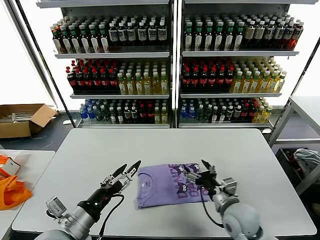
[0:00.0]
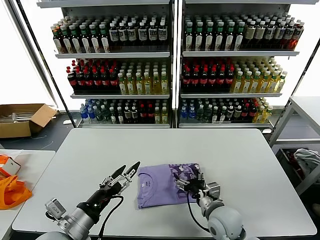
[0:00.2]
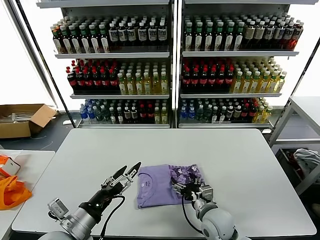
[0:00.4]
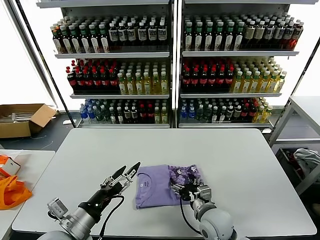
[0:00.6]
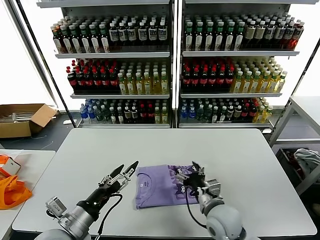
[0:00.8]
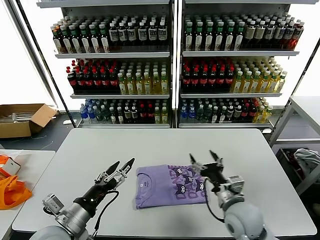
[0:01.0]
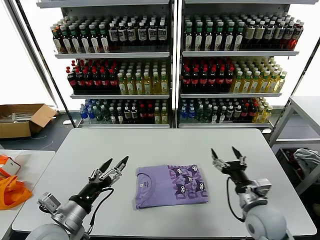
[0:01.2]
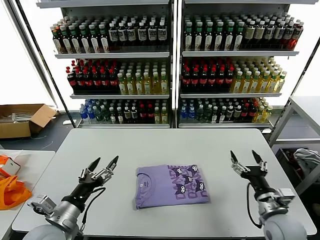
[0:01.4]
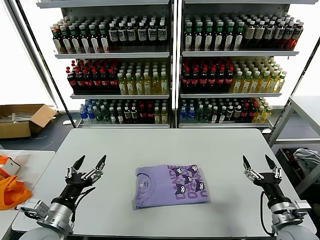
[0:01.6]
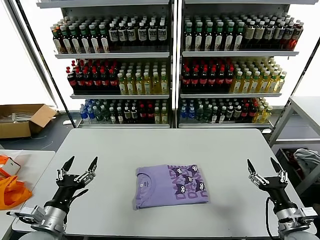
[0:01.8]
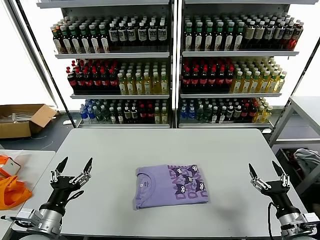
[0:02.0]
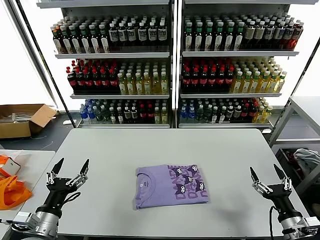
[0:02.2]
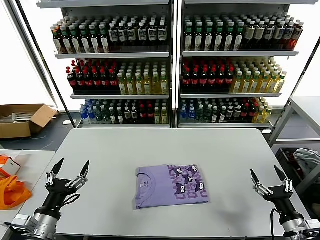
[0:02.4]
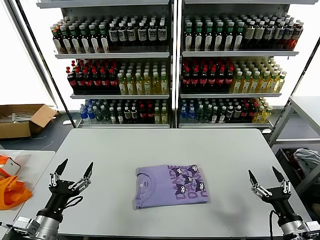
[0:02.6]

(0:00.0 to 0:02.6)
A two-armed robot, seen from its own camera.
Task of the whole recording: fold and organize the clothes.
0:00.0 - 0:01.2: The right gripper travels to the left and back again, approximately 10 cm each way.
0:01.2 - 0:02.6: The right gripper is displaced to the right and backward by approximately 15 cm. Meanwhile the left gripper travels to the left by approximately 5 cm.

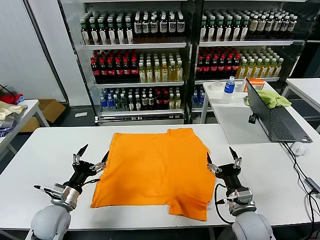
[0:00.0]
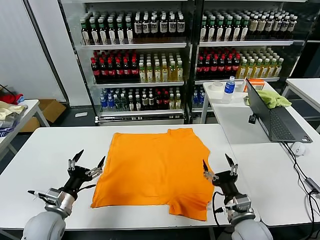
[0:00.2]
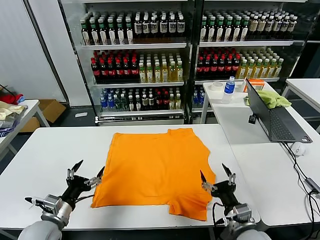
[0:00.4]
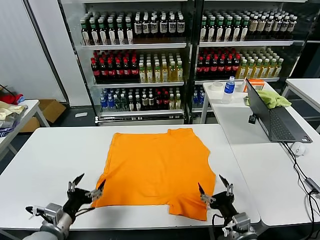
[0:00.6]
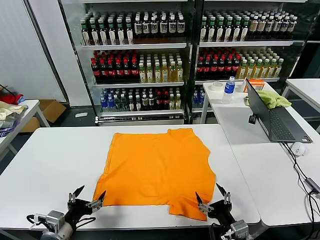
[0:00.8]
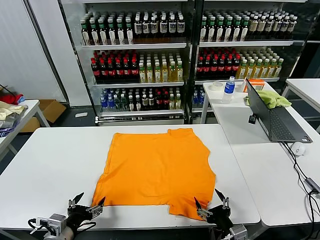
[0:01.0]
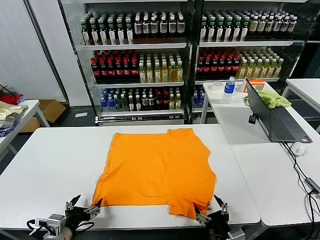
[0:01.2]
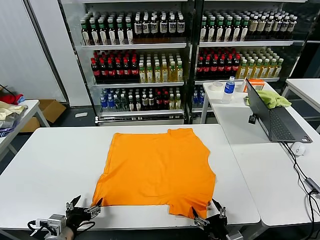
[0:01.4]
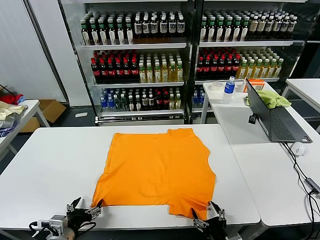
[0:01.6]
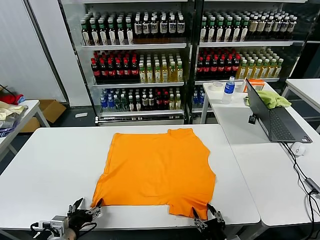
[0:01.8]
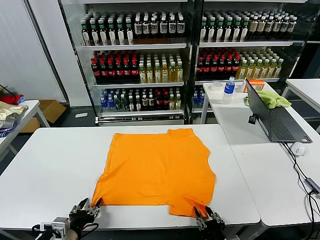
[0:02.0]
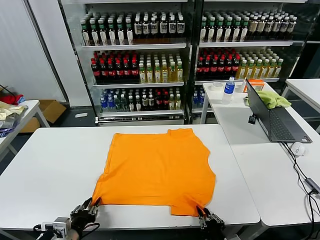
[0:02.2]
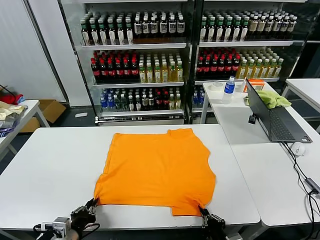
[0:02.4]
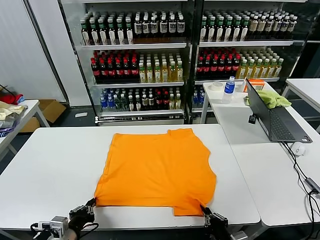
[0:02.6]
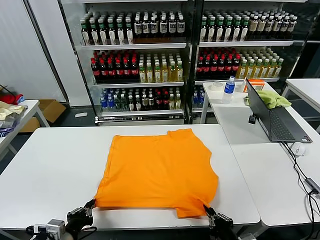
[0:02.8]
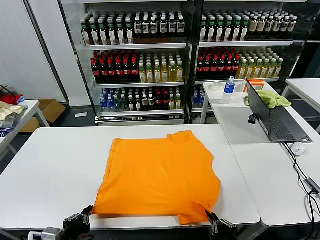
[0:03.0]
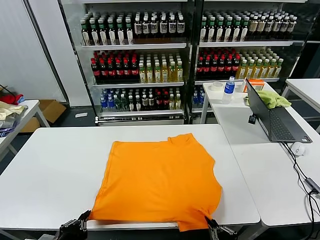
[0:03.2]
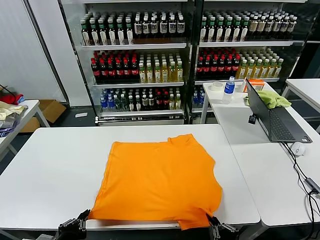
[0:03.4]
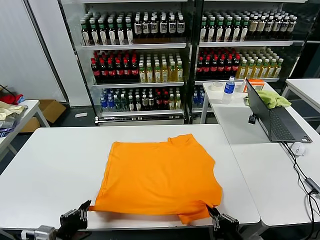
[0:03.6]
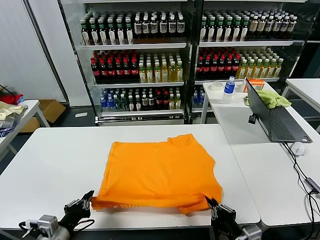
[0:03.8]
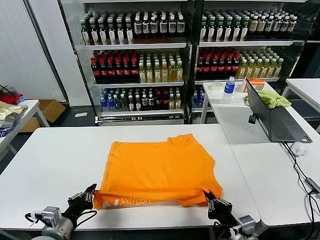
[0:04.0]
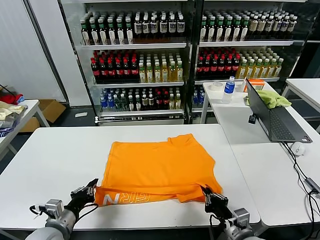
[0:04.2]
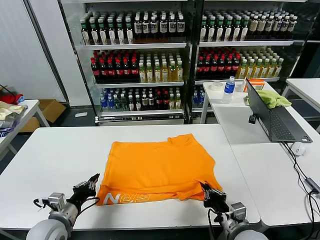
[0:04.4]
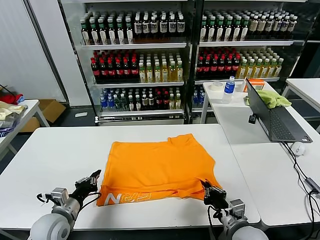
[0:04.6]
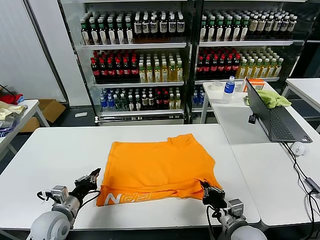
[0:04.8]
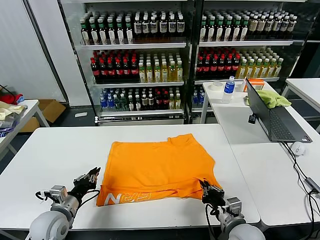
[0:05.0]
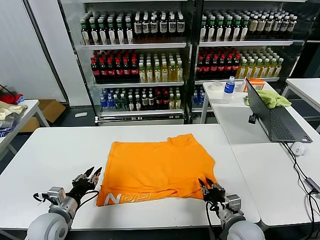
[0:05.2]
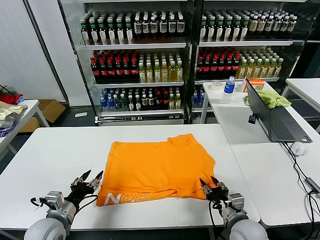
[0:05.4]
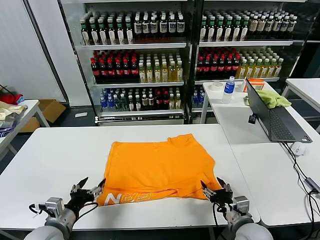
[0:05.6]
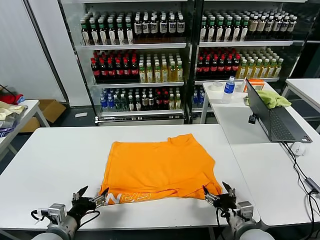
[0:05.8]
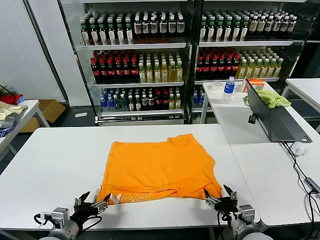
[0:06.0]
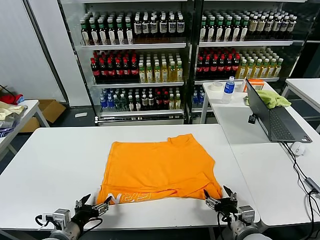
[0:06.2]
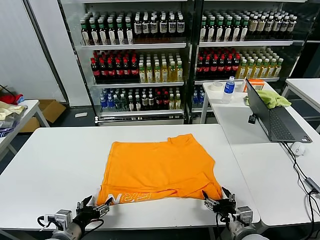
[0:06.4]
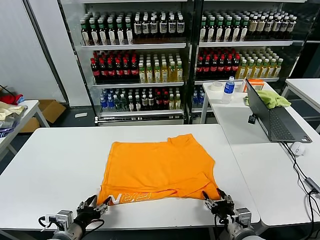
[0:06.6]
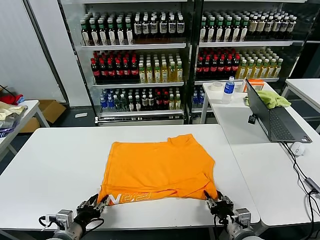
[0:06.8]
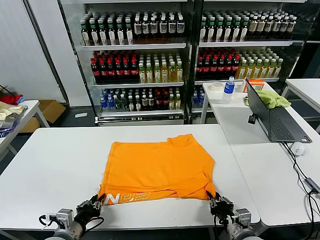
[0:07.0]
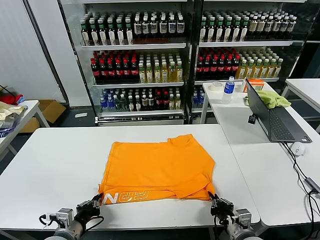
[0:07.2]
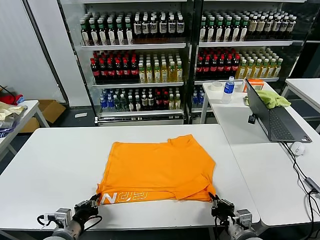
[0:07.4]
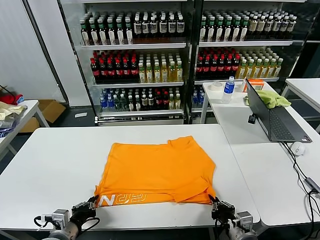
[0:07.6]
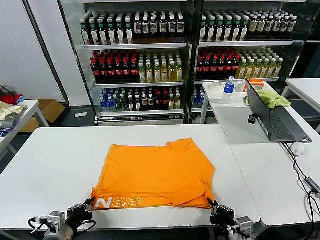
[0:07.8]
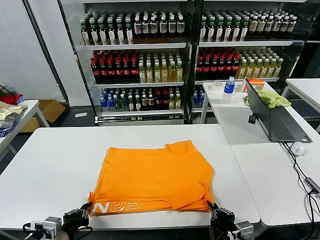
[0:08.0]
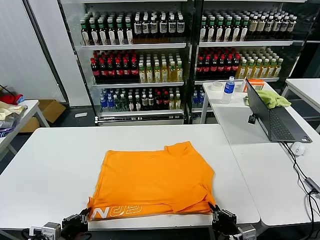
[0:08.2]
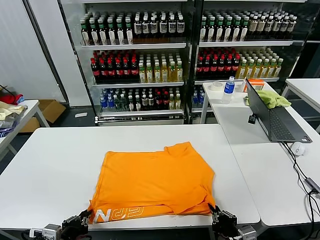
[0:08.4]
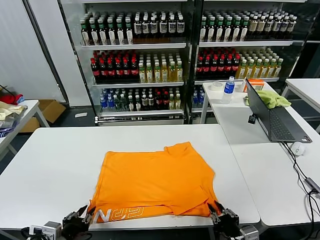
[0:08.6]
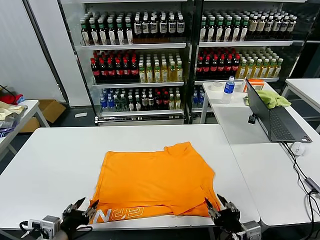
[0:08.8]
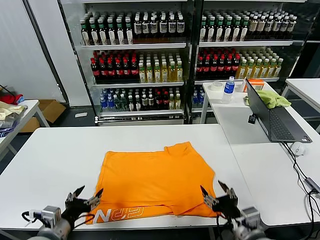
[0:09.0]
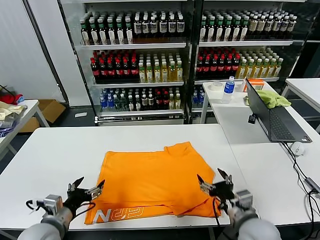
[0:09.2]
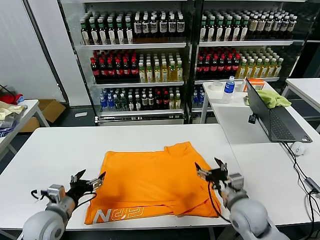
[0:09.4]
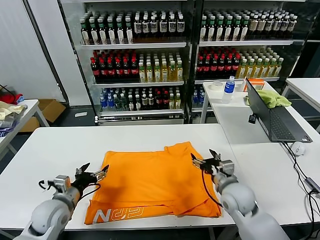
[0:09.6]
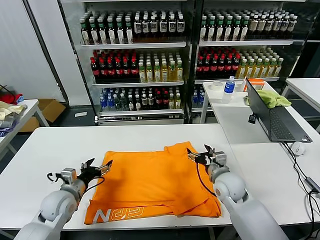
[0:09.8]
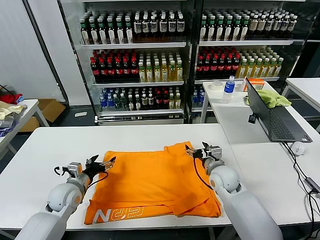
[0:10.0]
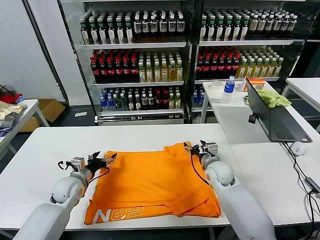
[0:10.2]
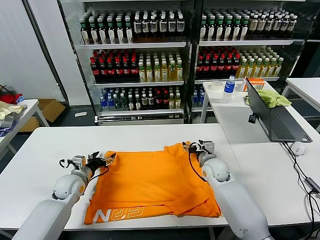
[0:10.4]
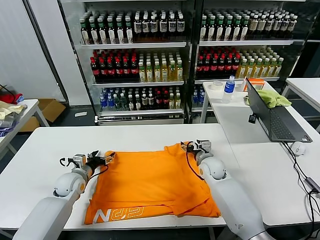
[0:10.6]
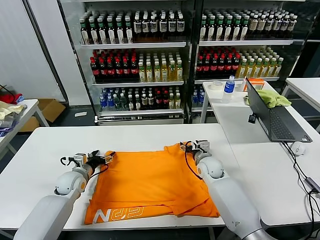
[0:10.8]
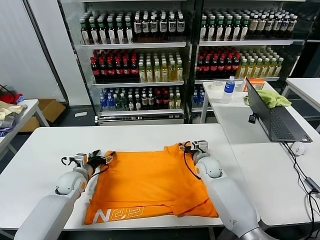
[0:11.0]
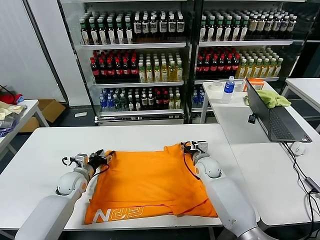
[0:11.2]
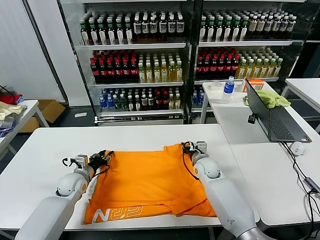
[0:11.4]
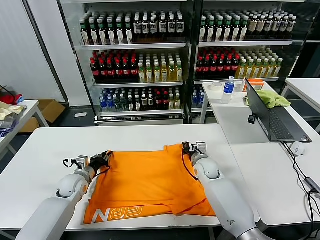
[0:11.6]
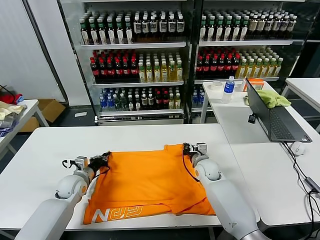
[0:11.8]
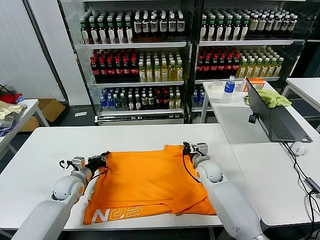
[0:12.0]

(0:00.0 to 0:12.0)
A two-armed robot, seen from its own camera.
Task of the whole recording: fold and organize the clothes.
Step, 0:00.0 - 0:02.4: use both grippers simultaneously to clamp the lower edge of the clothing fabric.
Step, 0:02.6 - 0:05.4: use both grippers to drag the lower edge of the fabric forward and fold it over the upper edge.
Step, 0:05.6 - 0:08.6: Drag the clothes downward with both gripper.
Step, 0:08.8 - 0:11.6: use both grippers simultaneously to clamp the upper edge of the clothing fabric.
0:01.6 - 0:03.0: The left gripper shifts by approximately 5 cm, and closes; the right gripper heads upward, covering about 5 cm, and closes its fingers.
0:03.0 - 0:04.4: Both grippers move forward, some 10 cm.
0:04.4 - 0:06.0: The left gripper ends up some 5 cm from where it was, and opens up, while the right gripper opens its fingers.
0:06.0 - 0:07.6: The right gripper closes up. Meanwhile the left gripper closes up.
0:07.6 - 0:09.0: Both grippers move upward, about 5 cm. The left gripper opens up; the right gripper opens up.
0:09.0 - 0:10.4: Both grippers move forward, roughly 25 cm.
0:10.4 - 0:12.0: The left gripper closes up, while the right gripper closes its fingers.

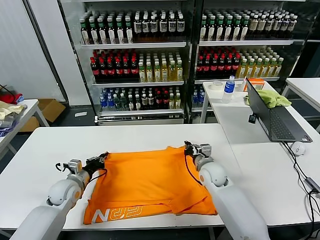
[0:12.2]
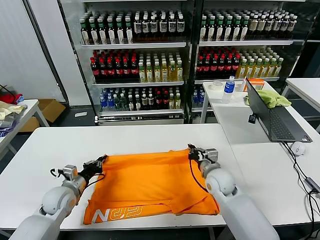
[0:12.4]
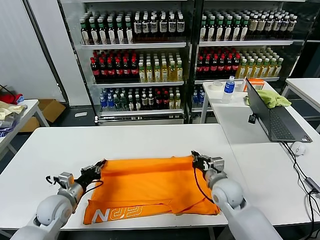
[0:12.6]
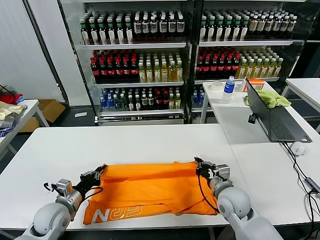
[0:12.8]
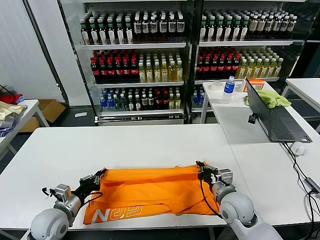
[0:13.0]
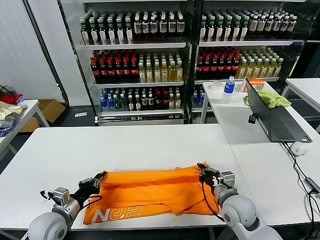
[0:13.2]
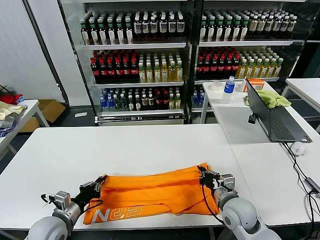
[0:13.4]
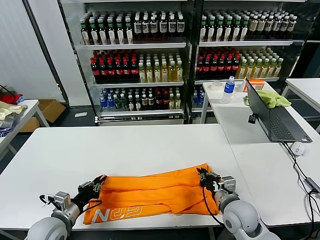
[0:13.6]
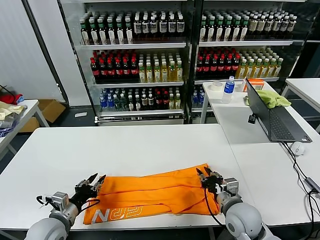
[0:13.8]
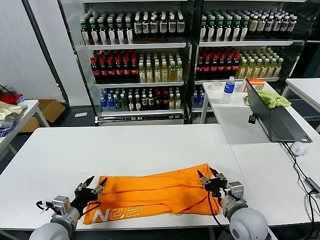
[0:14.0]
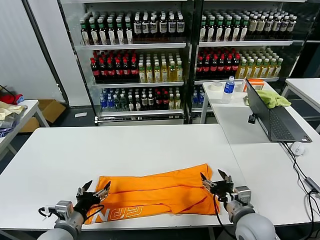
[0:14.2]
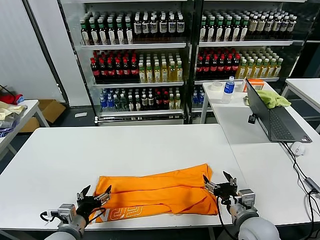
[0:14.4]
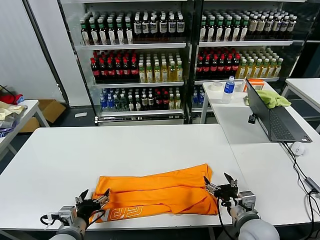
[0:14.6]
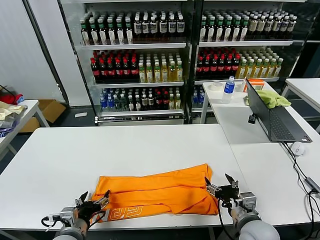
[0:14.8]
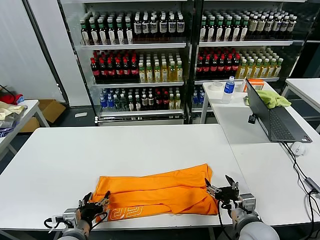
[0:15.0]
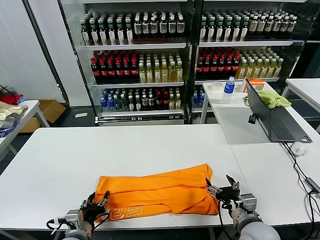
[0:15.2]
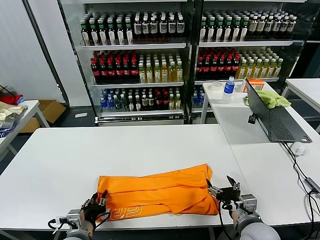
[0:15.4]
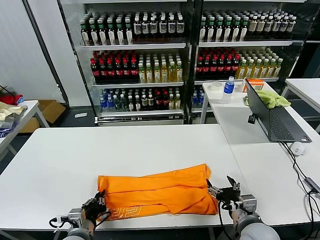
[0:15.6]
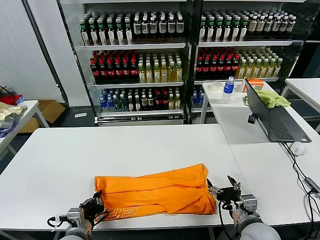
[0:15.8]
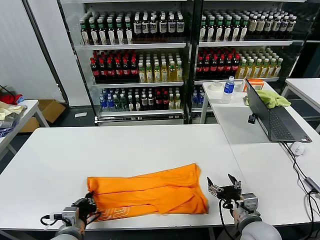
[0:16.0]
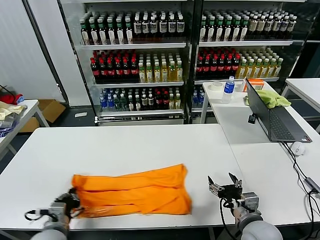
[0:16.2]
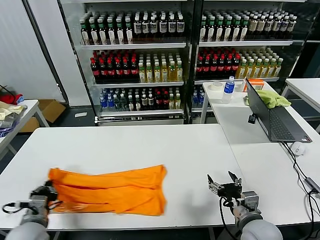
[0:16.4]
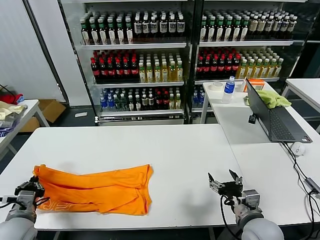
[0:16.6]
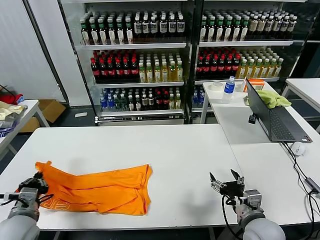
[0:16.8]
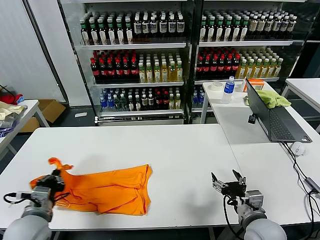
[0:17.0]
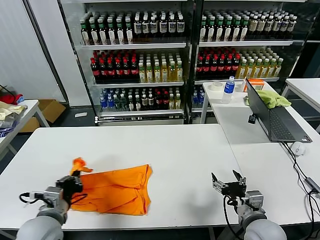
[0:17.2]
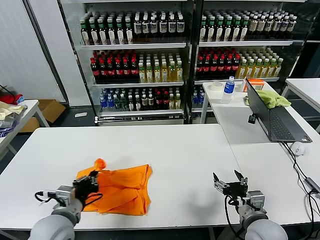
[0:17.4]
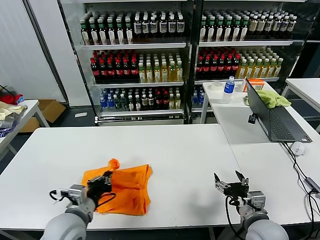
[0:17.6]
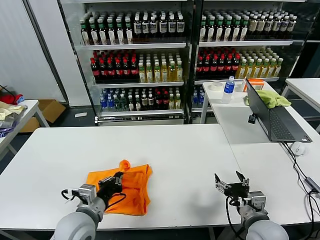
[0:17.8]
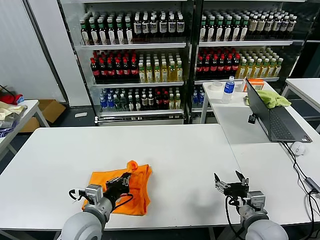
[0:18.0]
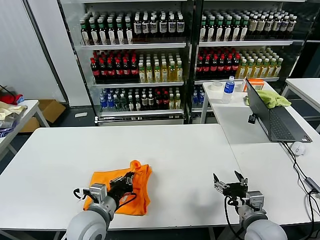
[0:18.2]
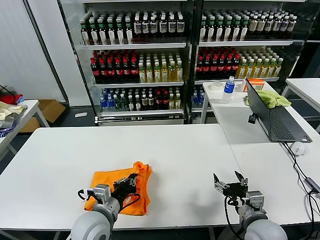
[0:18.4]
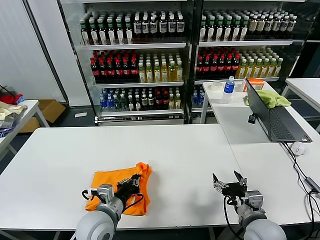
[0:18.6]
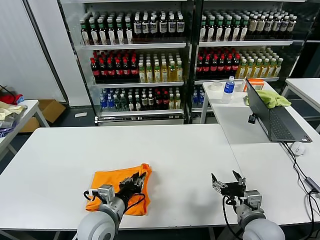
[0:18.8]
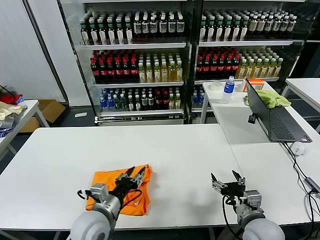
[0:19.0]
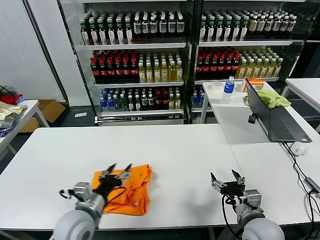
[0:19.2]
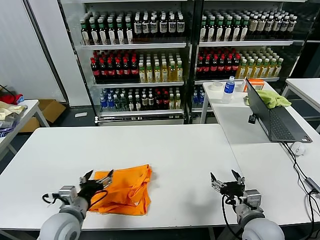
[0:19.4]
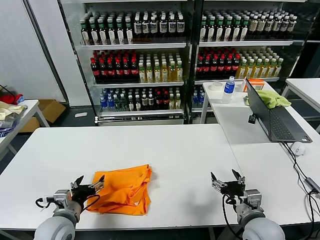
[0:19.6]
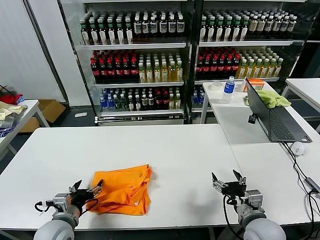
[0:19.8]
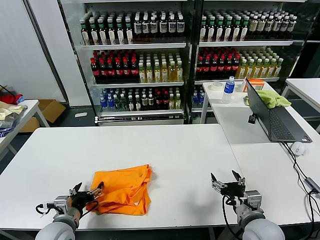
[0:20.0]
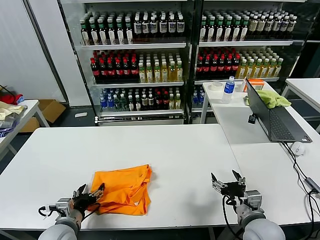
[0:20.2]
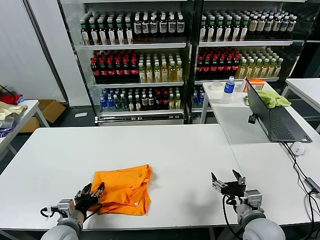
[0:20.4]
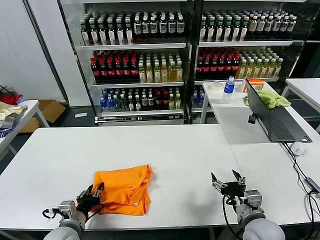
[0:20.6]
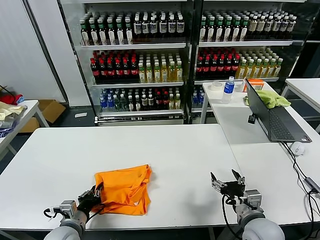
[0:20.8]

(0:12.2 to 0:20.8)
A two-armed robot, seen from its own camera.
Task of the whole recording: fold and organize the clothes.
Step, 0:12.2 - 0:13.8: use both grippers to drag the upper edge of the fabric backward and fold it over the lower edge.
Step, 0:14.0 - 0:15.6: use the left gripper to clamp the left edge of the fabric.
Step, 0:15.8 - 0:18.8: use the left gripper to drag the left edge of the fabric to the left and folds it over the right edge.
0:12.2 - 0:13.6: The two grippers go roughly 15 cm backward.
0:13.6 - 0:15.0: The right gripper goes about 5 cm backward, and opens. Meanwhile the left gripper is displaced to the right by approximately 5 cm, and opens.
0:15.0 - 0:16.6: The left gripper heads to the left, covering some 15 cm, and closes up.
0:16.6 - 0:18.0: The left gripper moves to the right, roughly 20 cm.
0:18.0 - 0:19.4: The left gripper travels to the left by some 5 cm, and opens.
0:19.4 - 0:20.8: The left gripper is displaced downward by about 5 cm, and closes.
